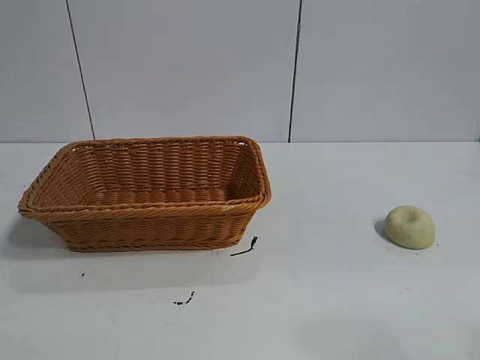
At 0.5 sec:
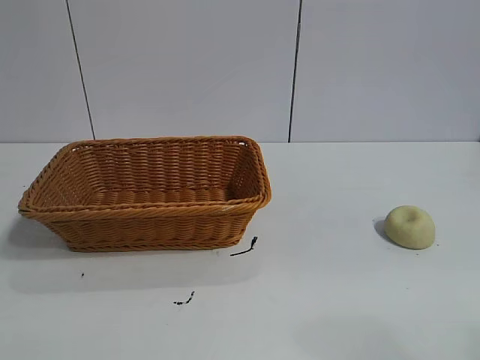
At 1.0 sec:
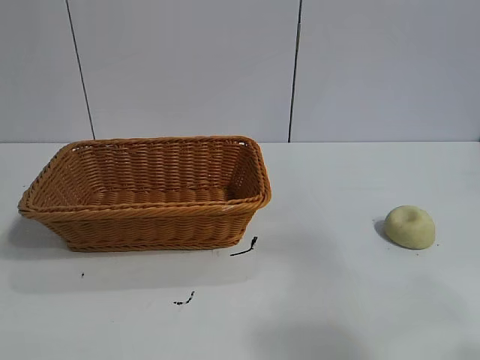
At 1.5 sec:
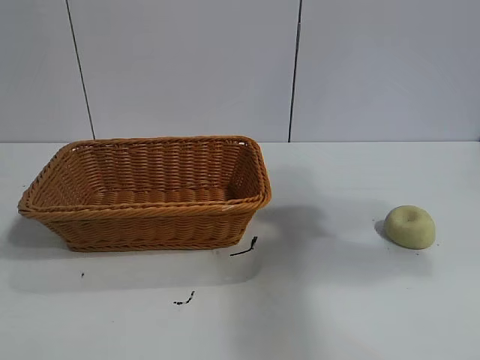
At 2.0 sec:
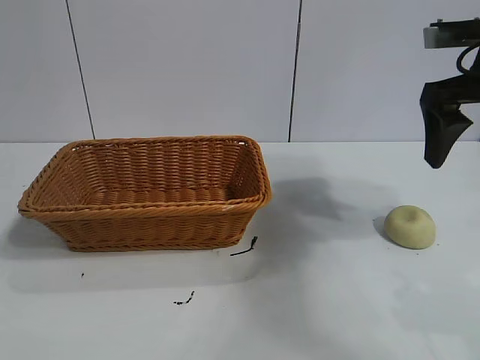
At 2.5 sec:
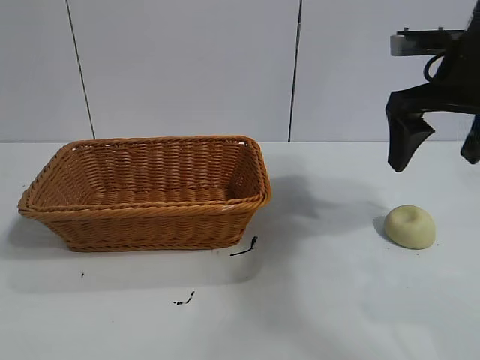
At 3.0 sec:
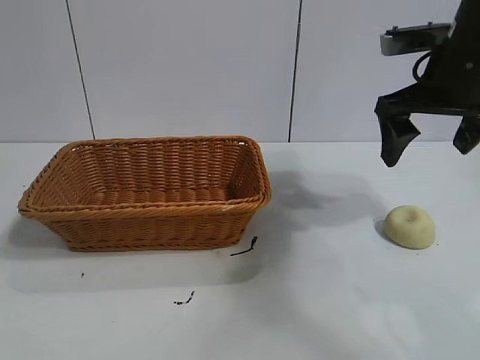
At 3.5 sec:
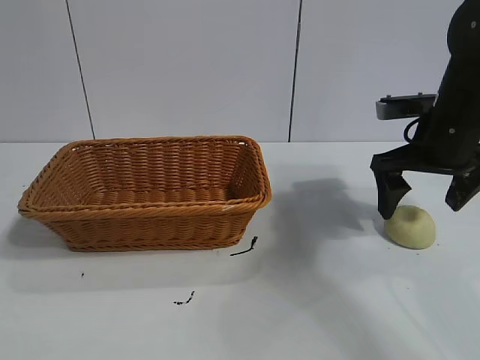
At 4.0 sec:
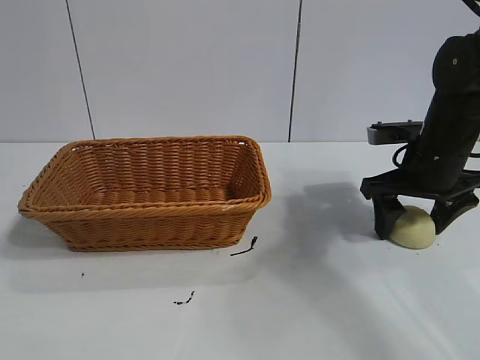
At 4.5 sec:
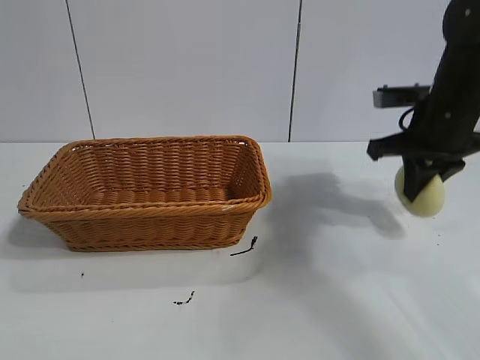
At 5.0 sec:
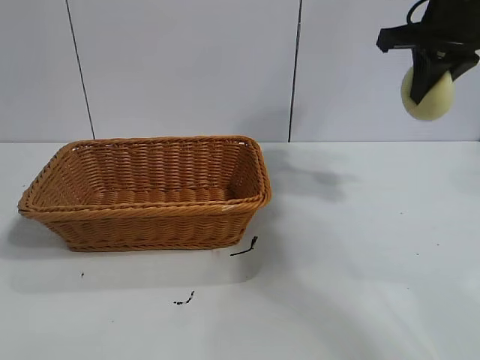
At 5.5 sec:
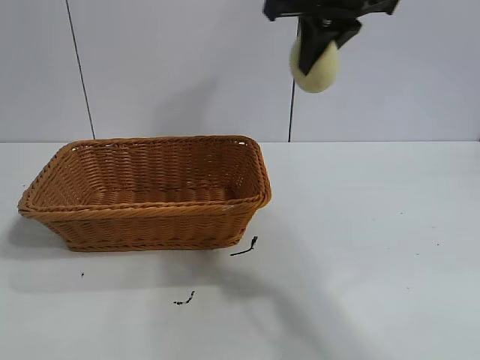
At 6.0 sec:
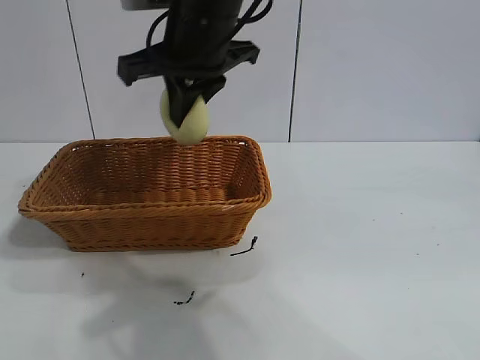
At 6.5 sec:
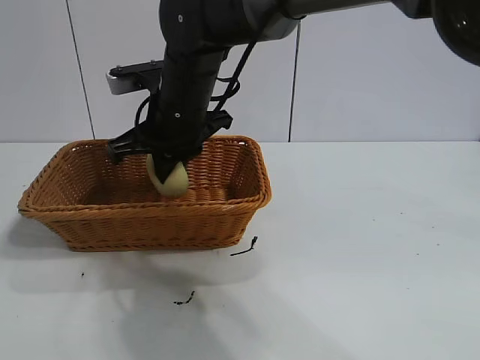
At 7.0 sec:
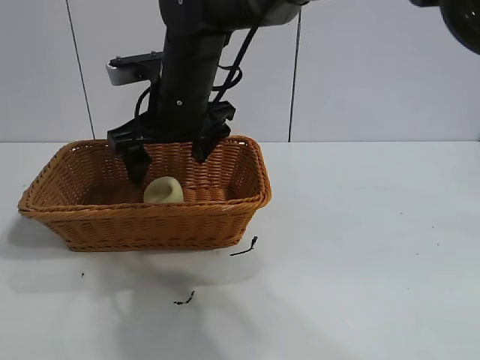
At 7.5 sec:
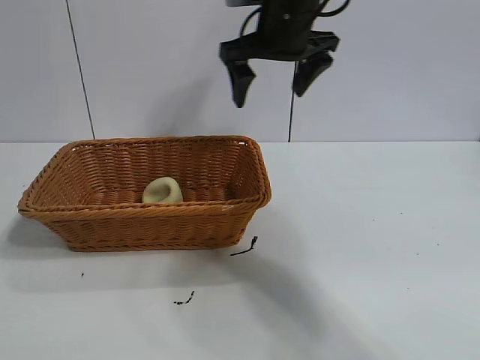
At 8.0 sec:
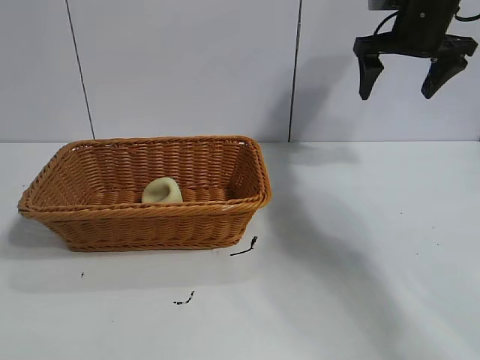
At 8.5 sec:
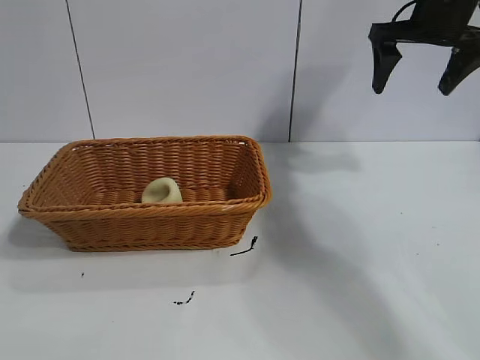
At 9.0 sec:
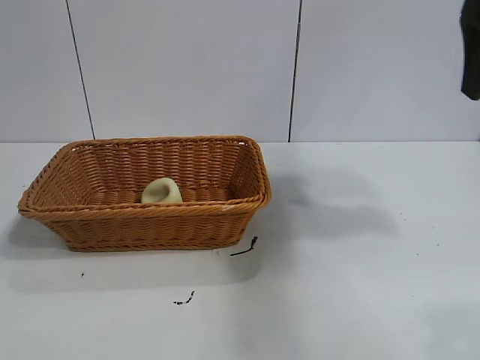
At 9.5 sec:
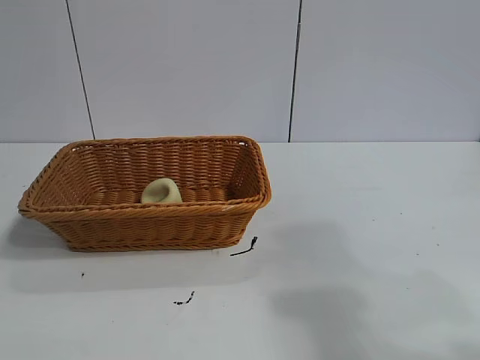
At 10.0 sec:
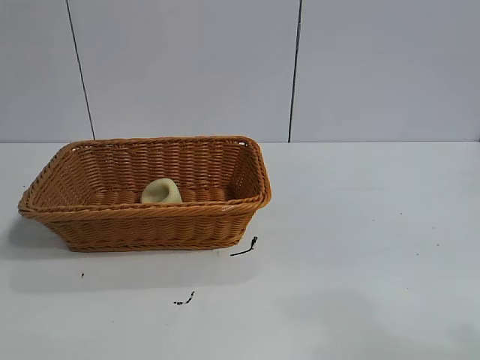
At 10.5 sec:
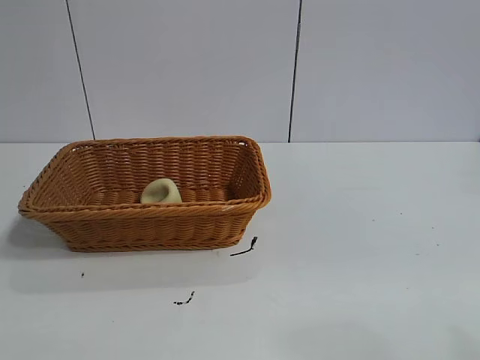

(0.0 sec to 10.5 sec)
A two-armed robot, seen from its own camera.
Task of the whole recording: pick up the egg yolk pastry and put it into the basket.
Step, 1.0 sec - 4.0 sec: Grasp egg yolk pastry with right gripper.
Step, 4.5 sec - 7.0 sec: Place the egg yolk pastry in the basket with right gripper.

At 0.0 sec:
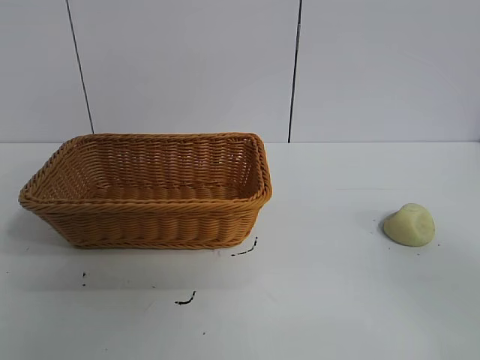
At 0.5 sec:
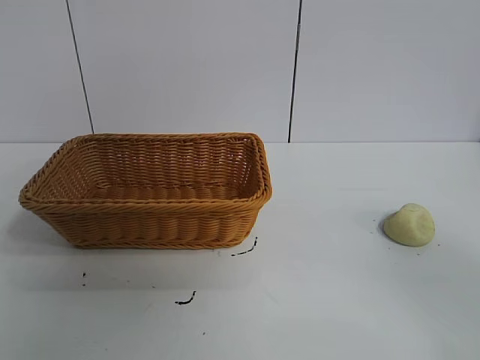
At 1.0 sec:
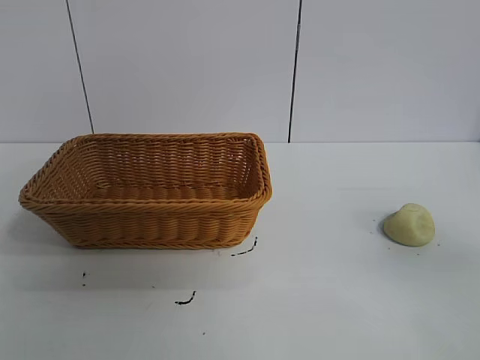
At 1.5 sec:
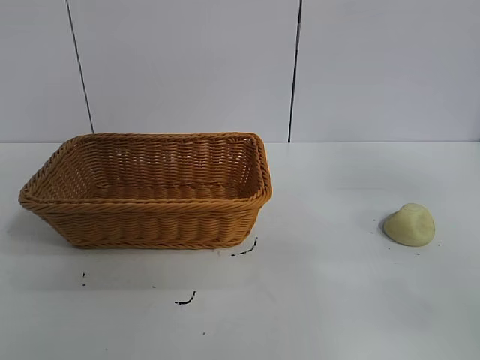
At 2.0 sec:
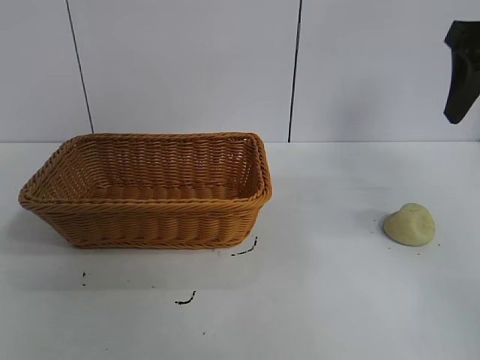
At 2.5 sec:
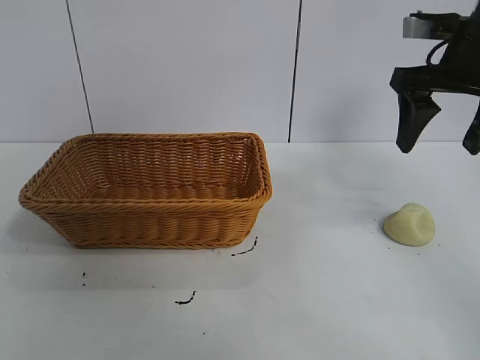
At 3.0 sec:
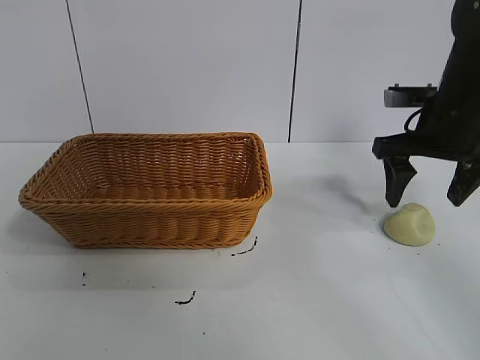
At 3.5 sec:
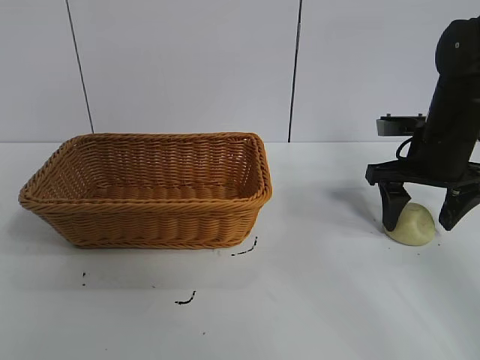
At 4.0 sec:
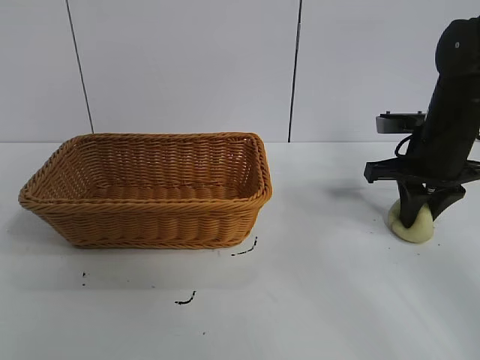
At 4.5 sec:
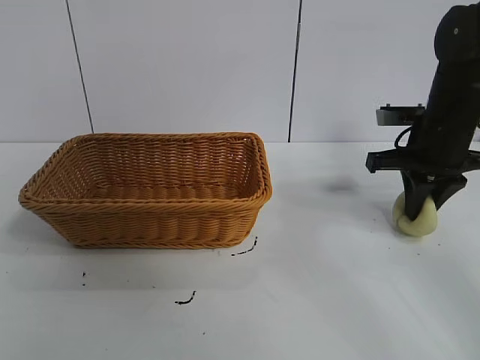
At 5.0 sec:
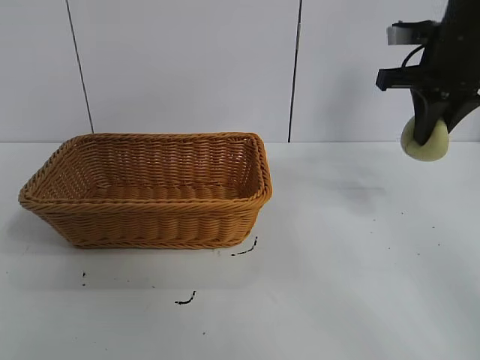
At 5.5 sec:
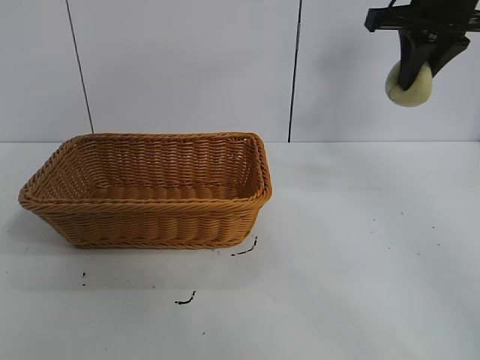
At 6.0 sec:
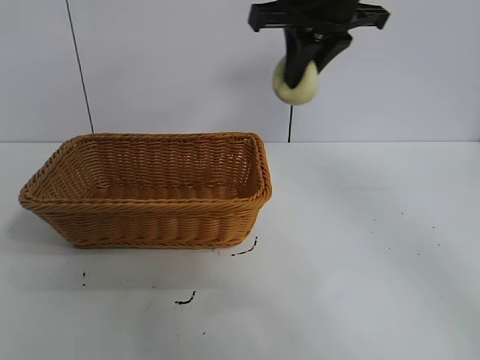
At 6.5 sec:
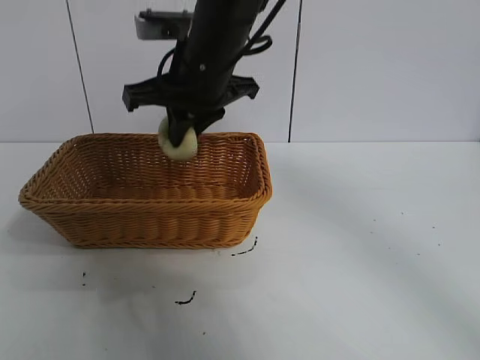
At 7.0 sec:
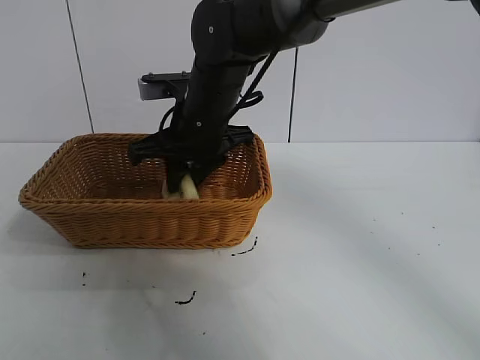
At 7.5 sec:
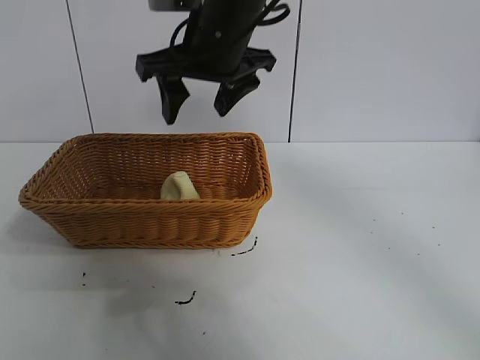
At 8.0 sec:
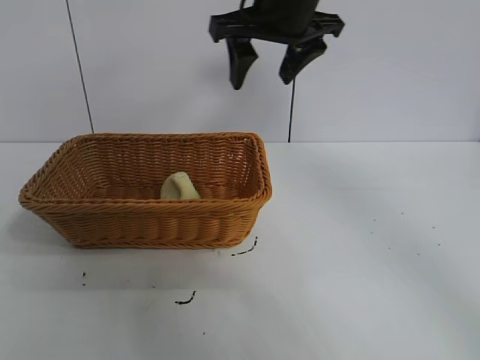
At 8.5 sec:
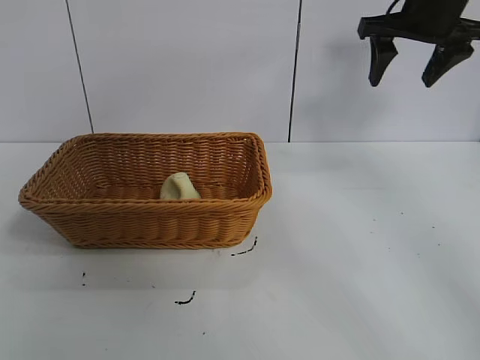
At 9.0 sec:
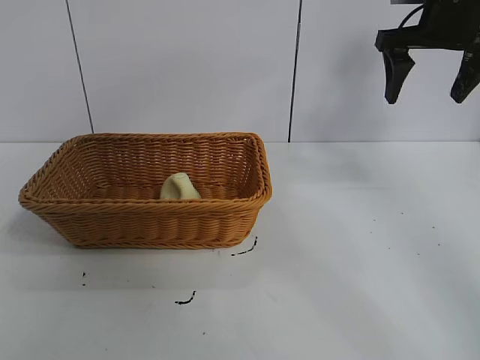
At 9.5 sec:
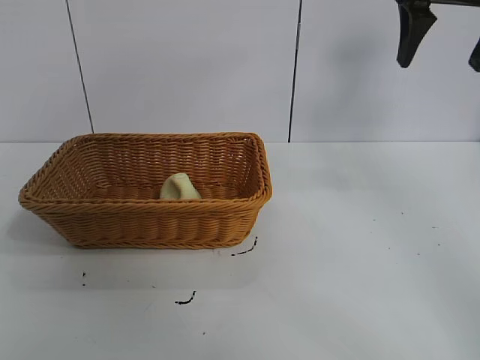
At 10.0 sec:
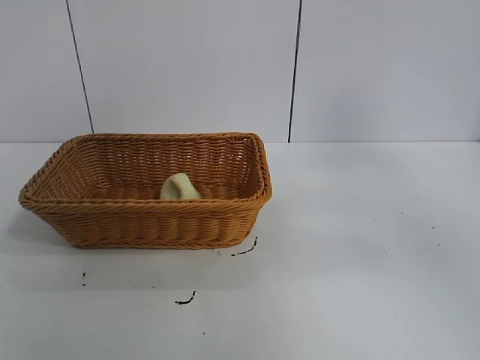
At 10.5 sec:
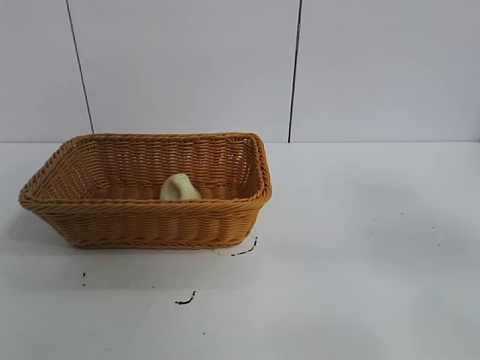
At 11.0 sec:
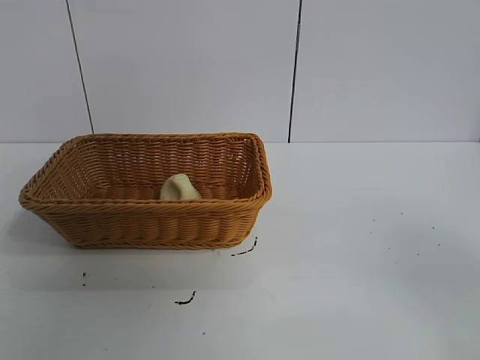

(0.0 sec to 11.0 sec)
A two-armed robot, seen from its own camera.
Task of the whole recording: pick up the egg yolk pastry and put it into the basket.
Step, 1.0 sec - 4.0 sec: Grasp egg yolk pastry with right gripper.
Step, 4.5 sec - 7.0 sec: Place the egg yolk pastry in the basket with right gripper.
